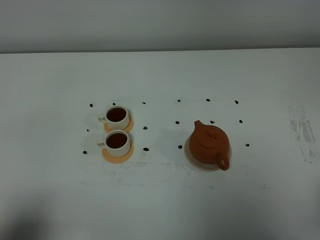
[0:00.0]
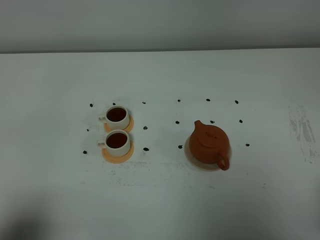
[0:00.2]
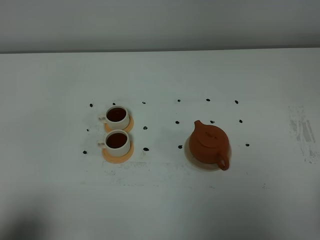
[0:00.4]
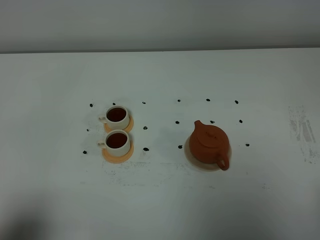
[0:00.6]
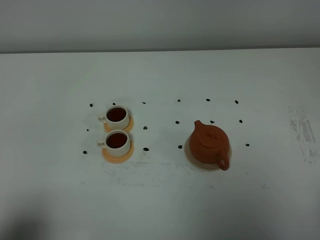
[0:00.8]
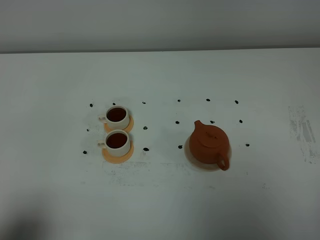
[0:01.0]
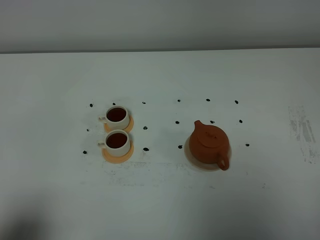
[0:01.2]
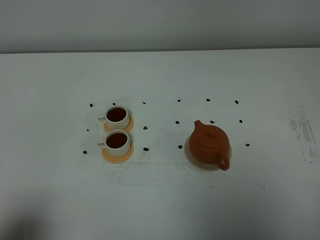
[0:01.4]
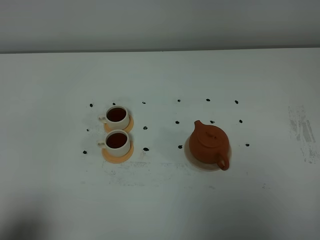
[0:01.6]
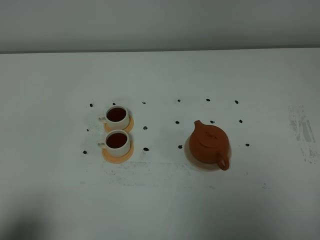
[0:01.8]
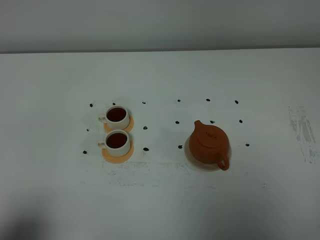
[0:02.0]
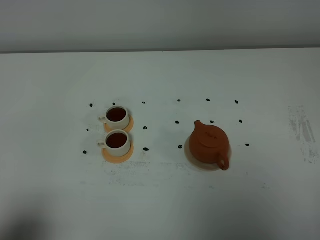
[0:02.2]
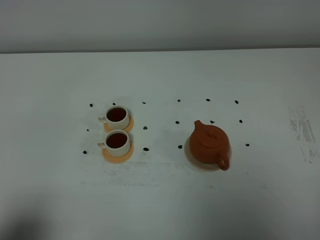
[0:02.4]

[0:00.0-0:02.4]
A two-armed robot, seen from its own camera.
Task of the whole recording: grasp the brown teapot and pour the tea into the two white teacups one by one, put the brown teapot back in its original place.
0:01.2 to 0:02.4: Both grippers stay about where they are.

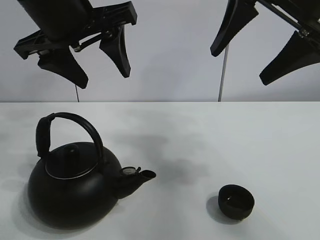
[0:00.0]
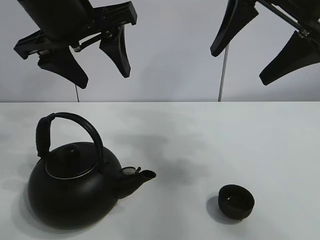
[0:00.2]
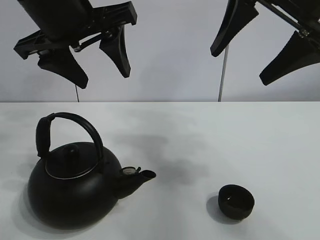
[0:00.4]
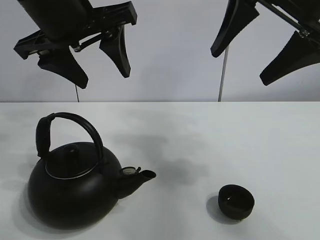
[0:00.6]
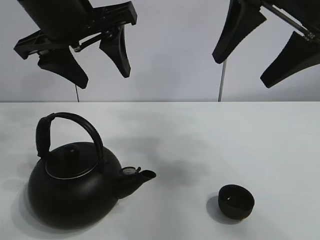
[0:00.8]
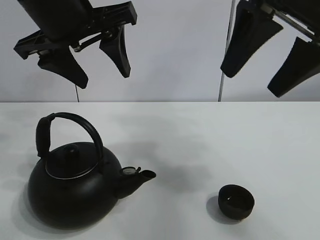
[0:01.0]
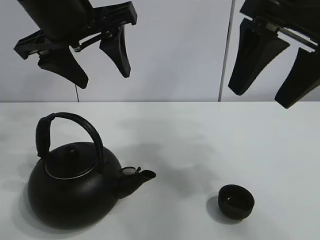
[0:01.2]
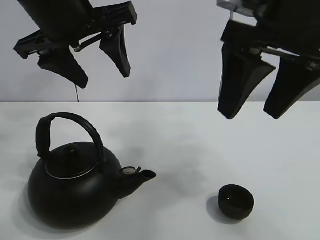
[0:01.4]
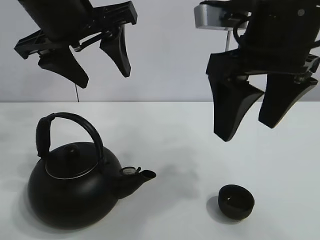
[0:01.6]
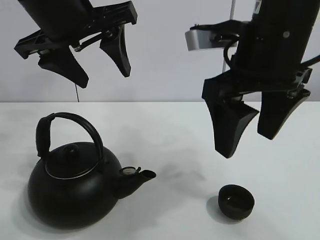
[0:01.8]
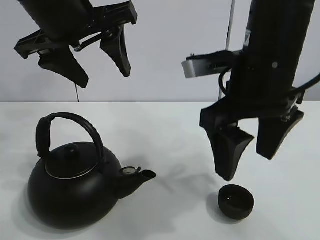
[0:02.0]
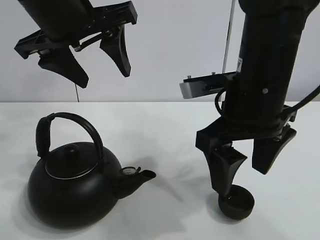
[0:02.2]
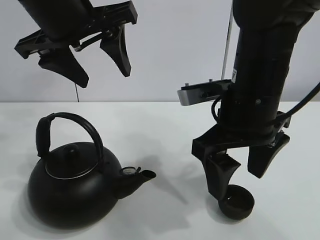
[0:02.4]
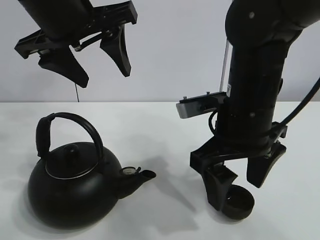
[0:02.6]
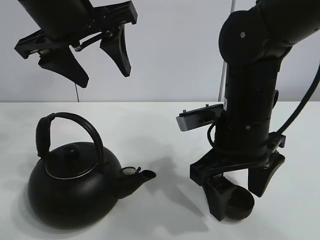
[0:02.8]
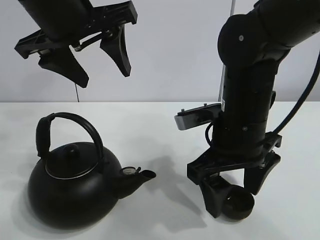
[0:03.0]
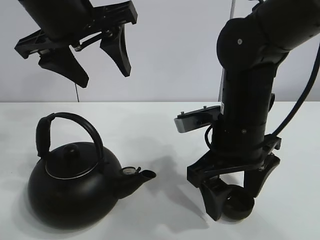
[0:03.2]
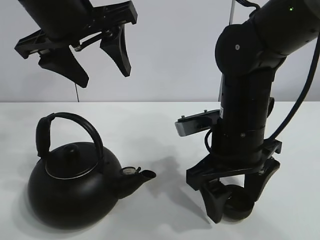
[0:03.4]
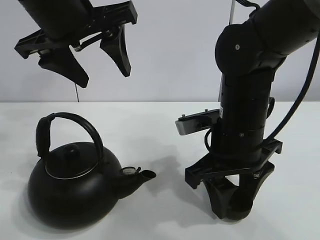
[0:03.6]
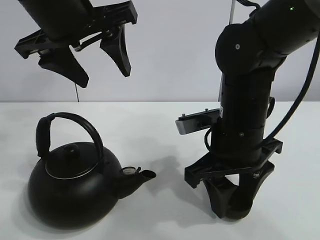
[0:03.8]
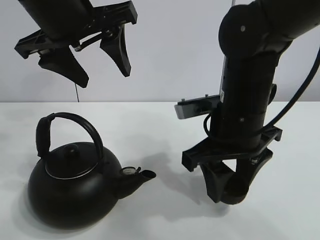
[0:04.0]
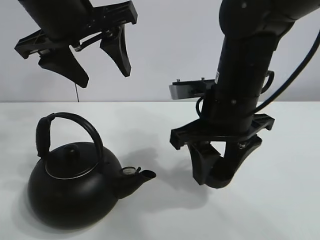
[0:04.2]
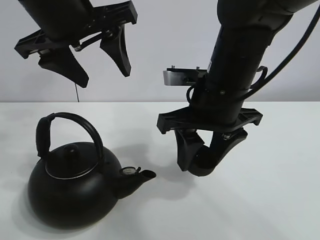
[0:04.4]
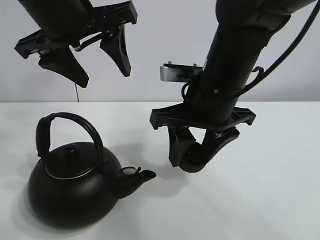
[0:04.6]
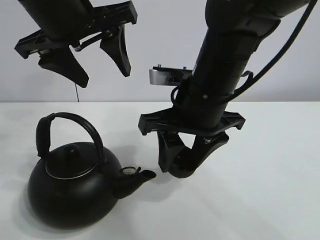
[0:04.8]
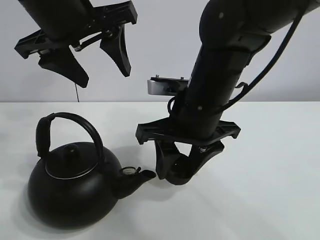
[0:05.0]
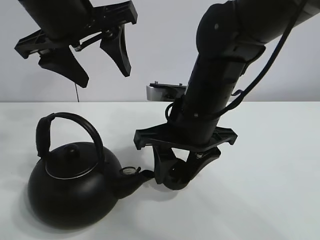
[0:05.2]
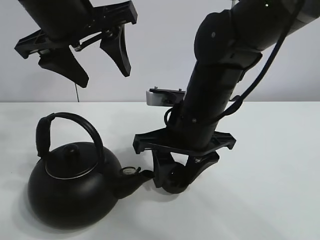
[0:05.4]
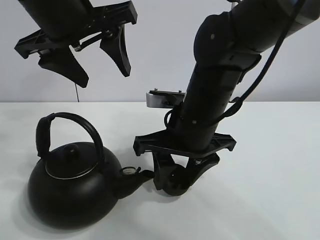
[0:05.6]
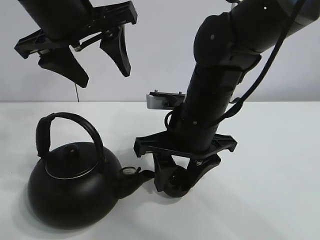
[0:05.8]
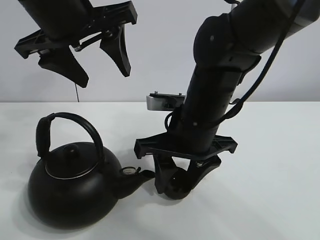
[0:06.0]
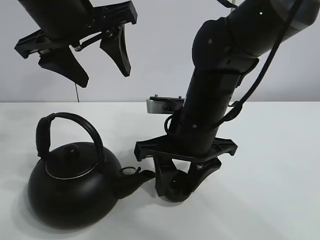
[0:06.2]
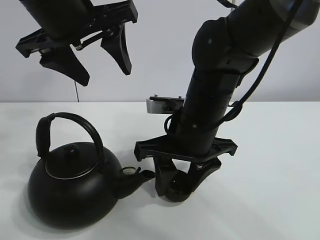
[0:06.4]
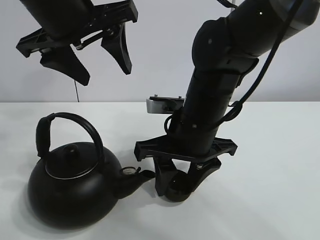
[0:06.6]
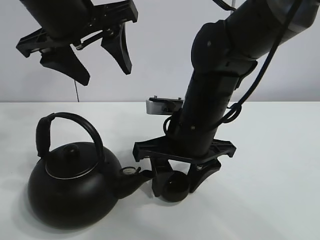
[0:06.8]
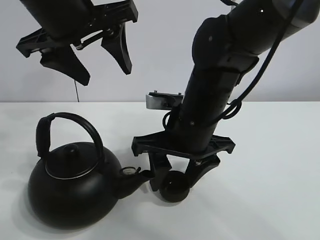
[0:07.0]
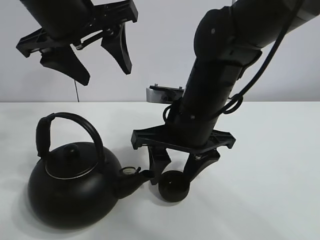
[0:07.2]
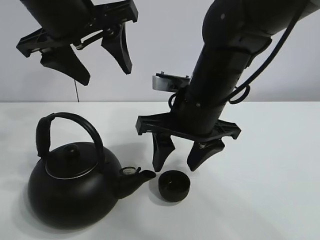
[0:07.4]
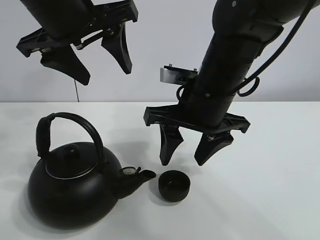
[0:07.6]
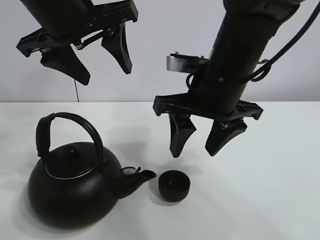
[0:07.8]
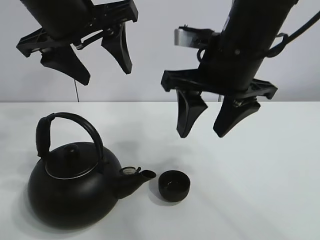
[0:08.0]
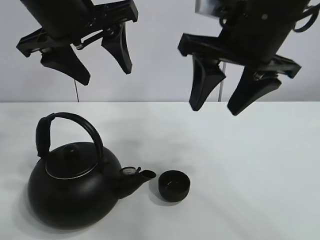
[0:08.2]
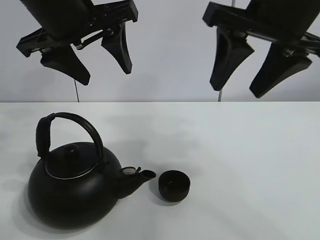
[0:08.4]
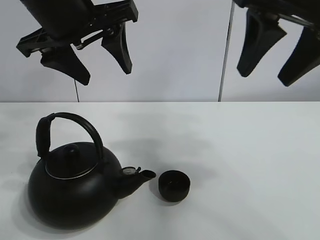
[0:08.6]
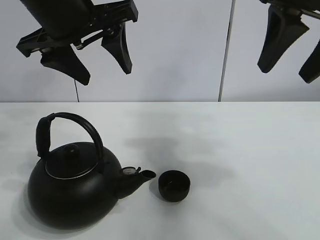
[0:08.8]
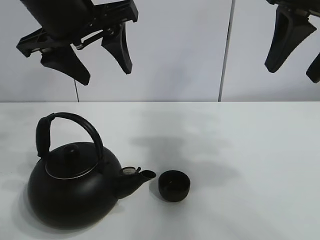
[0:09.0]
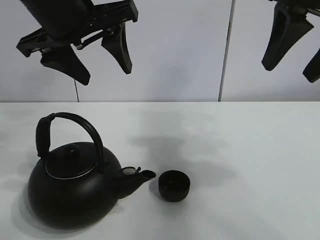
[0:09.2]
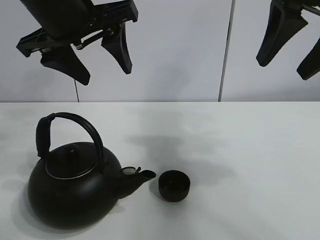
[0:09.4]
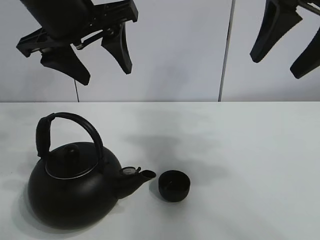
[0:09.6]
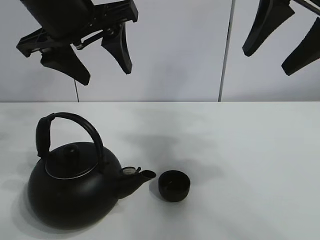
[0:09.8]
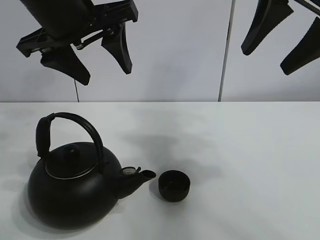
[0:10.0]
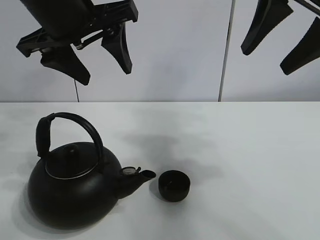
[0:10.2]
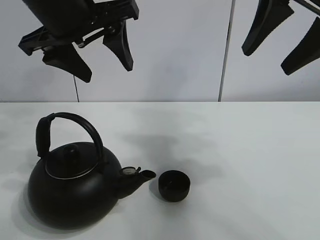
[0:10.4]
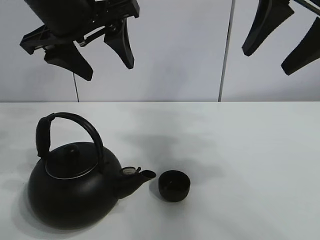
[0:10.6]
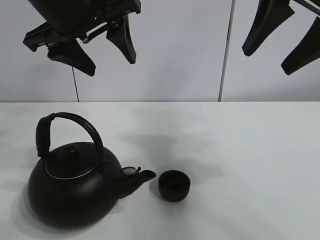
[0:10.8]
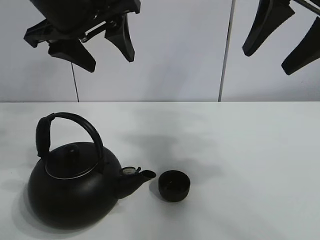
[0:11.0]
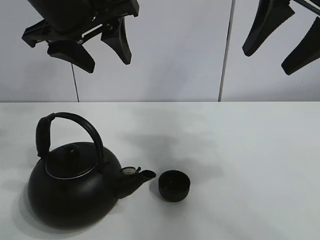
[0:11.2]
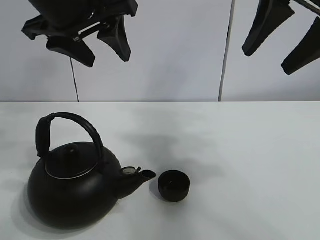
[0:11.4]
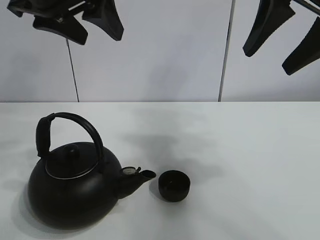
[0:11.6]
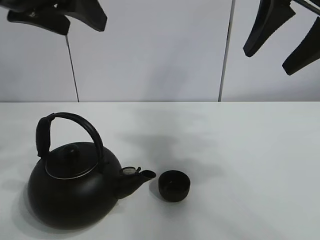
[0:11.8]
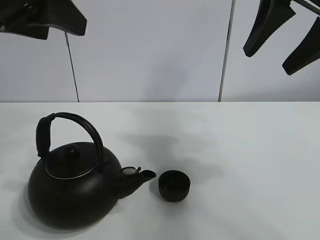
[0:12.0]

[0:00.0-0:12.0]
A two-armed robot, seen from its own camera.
Task of the whole recording: pour tea into the teacup.
Step, 0:00.0 to 0:03.6: Pick up the teacup with the right gripper.
Step, 0:03.8 to 0:07.0: Place the teacup in the center of view with the right gripper.
0:01.6 to 0:03.0: The right gripper is displaced downward by approximately 15 cm.
0:03.0 to 0:04.4: The right gripper closes up.
0:04.4 to 0:06.0: The right gripper changes place by approximately 5 cm.
0:06.0 to 0:07.6: The grippers stay close to where they were, moving slightly.
0:07.6 to 0:09.0: The right gripper shifts about 20 cm upward and to the right.
0:09.0 to 0:10.4: The grippers stay close to where they were, moving slightly.
0:10.4 to 0:12.0: The left gripper moves backward and to the left, some 10 cm.

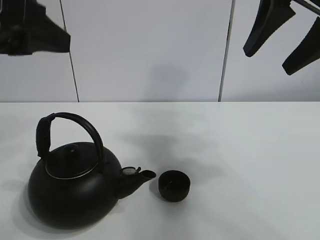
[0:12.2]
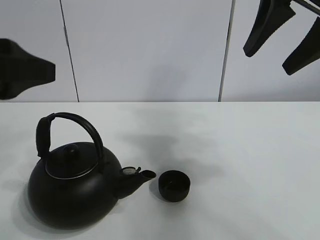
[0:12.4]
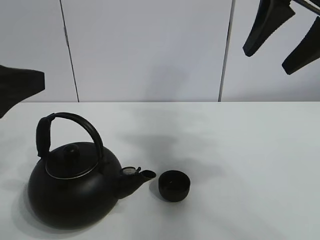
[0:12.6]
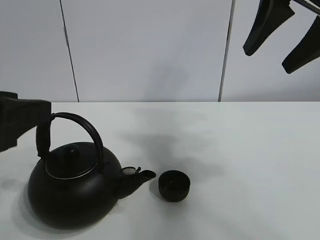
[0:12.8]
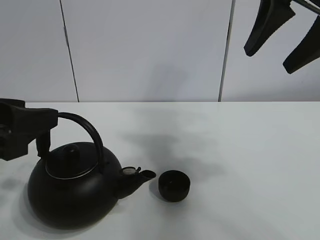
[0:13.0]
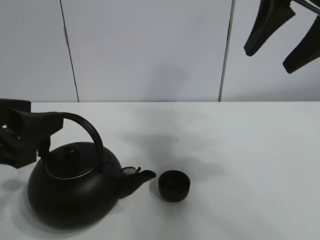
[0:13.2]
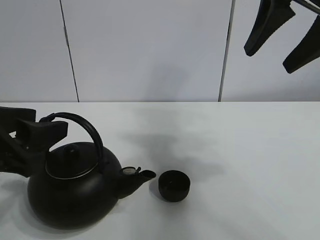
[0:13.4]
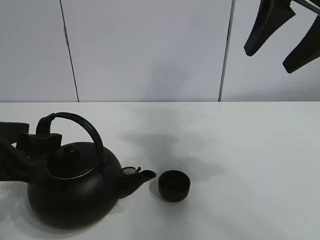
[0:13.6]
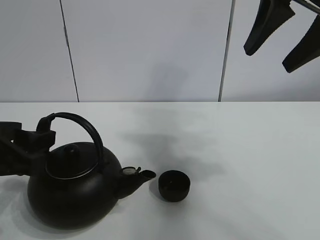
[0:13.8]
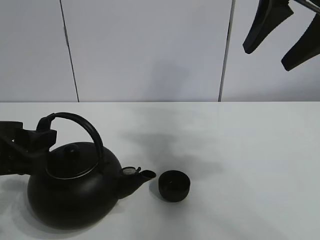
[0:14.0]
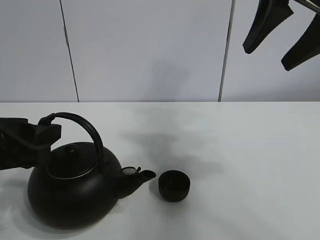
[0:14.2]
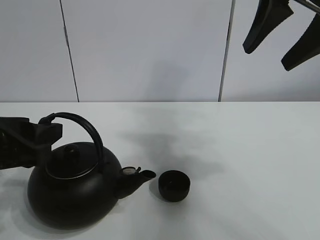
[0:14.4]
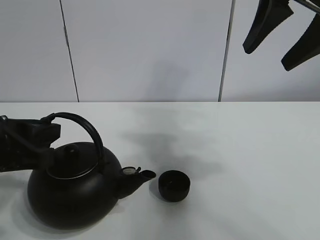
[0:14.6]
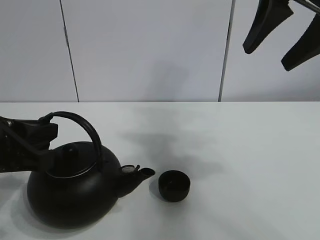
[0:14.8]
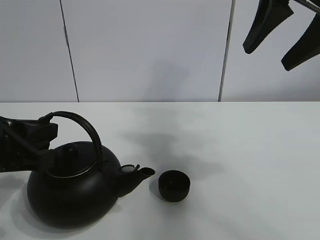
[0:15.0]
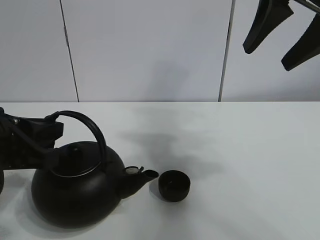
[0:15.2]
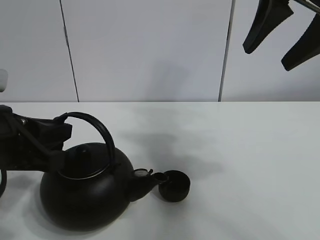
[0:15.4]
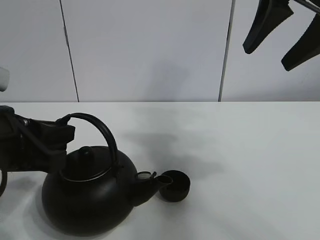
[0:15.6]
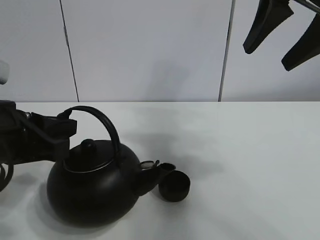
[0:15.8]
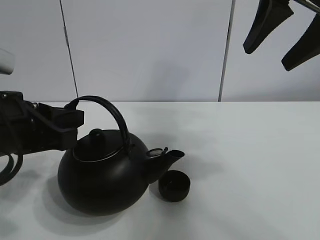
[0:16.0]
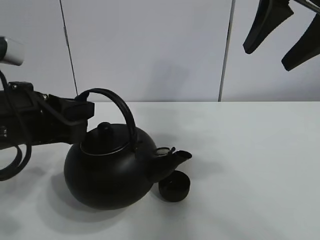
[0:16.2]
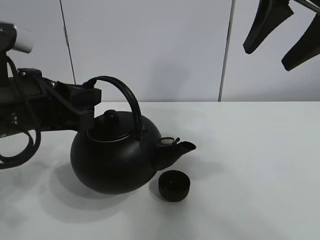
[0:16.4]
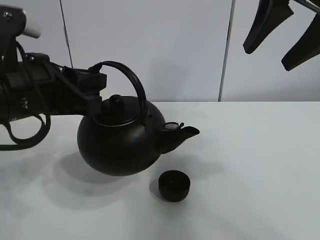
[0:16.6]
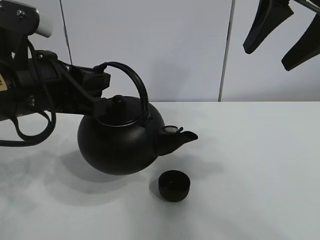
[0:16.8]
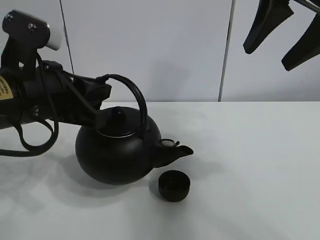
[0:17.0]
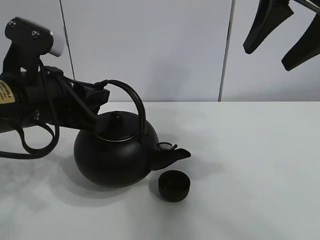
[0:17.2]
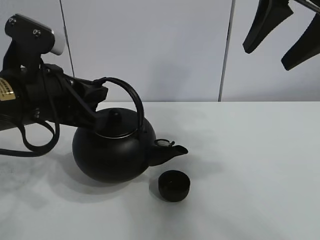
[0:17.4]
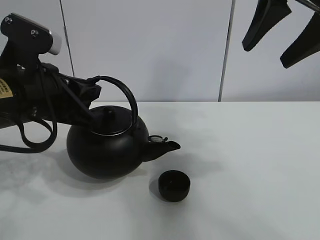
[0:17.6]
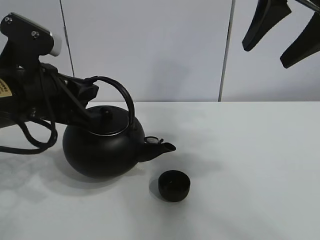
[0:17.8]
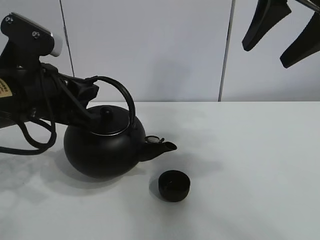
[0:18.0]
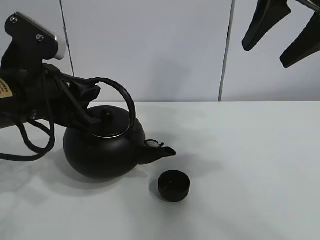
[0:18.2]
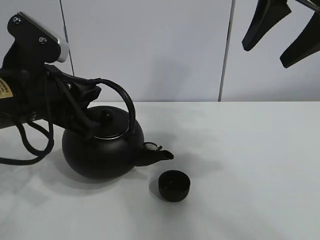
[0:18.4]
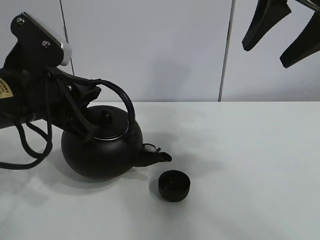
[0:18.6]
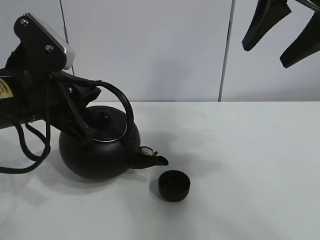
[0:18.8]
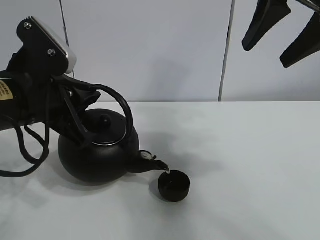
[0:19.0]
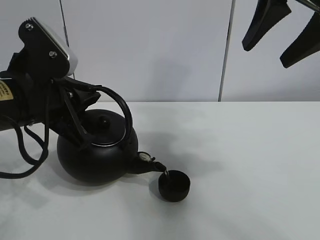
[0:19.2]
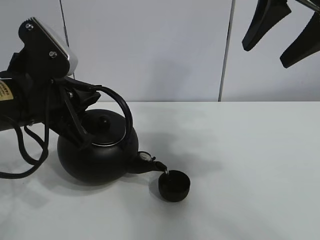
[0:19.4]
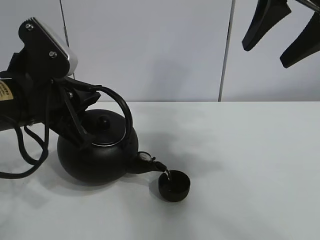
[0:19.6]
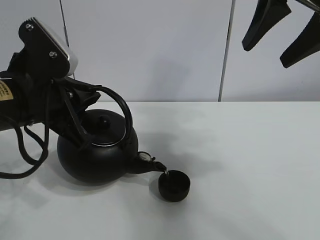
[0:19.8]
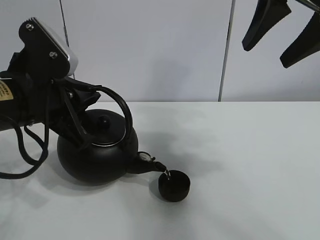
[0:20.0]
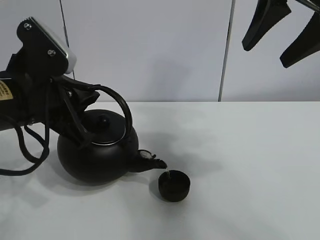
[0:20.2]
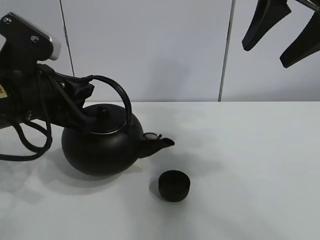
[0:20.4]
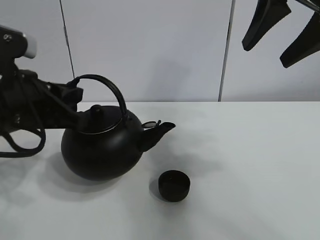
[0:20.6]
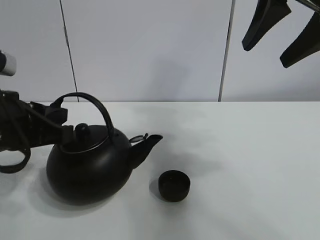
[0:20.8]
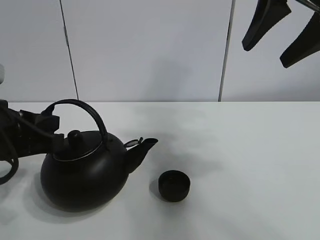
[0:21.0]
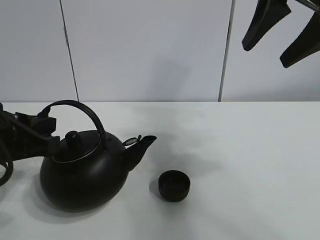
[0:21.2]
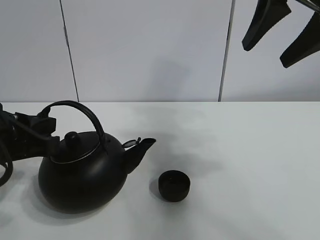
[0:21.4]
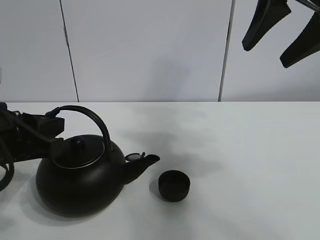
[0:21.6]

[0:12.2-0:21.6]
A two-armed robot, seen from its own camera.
Task of the whole recording: pour tea into the teacup.
Step, 0:12.2 to 0:15.0: Pick up the teapot with the left gripper.
Step, 0:15.2 to 0:20.2: Pour tea into the teacup with the left gripper.
0:12.2 to 0:13.8: The left gripper travels downward by some 15 cm.
0:13.8 to 0:15.4: The left gripper closes.
0:15.4 to 0:17.0: The left gripper goes some 5 cm forward.
0:17.0 to 0:18.4: The grippers make only small movements.
0:18.4 to 0:20.0: The grippers move only a little.
0:20.0 to 0:21.6: The left gripper changes place by roughly 5 cm.
